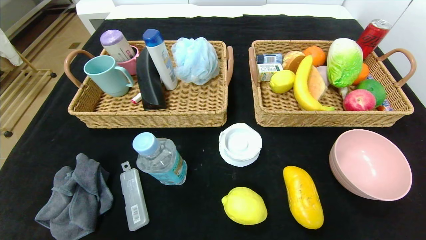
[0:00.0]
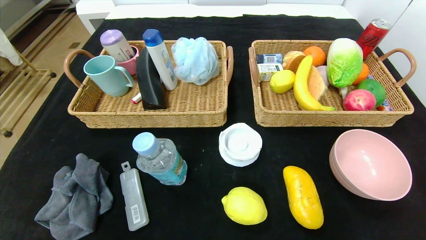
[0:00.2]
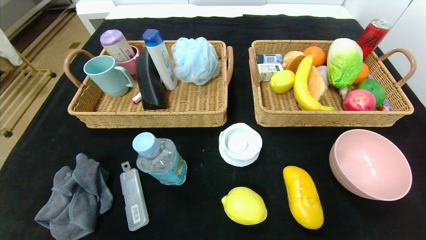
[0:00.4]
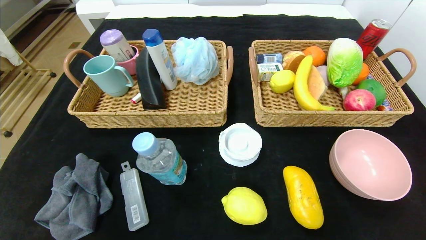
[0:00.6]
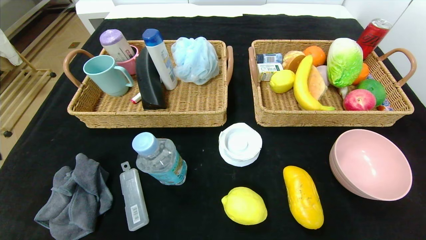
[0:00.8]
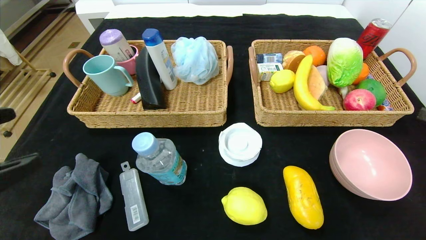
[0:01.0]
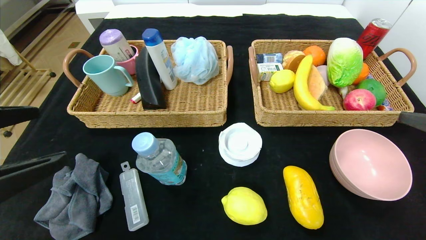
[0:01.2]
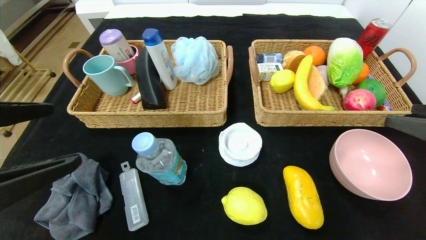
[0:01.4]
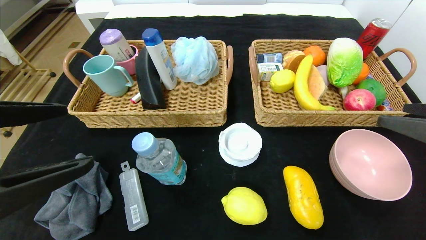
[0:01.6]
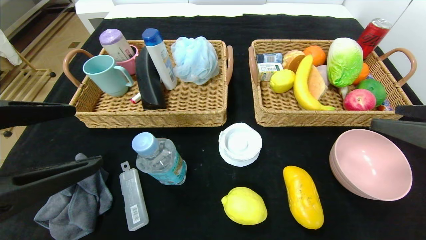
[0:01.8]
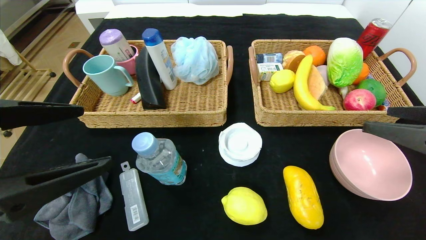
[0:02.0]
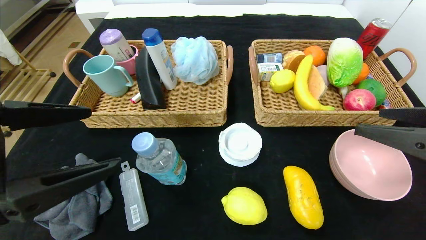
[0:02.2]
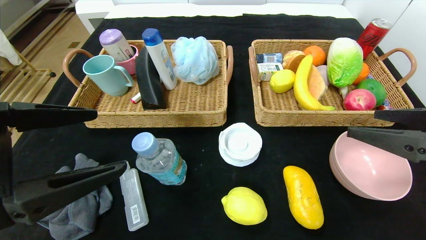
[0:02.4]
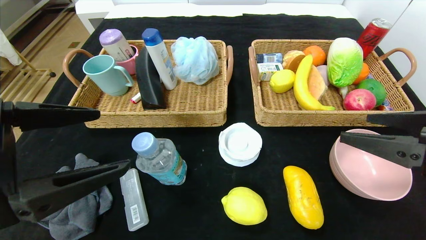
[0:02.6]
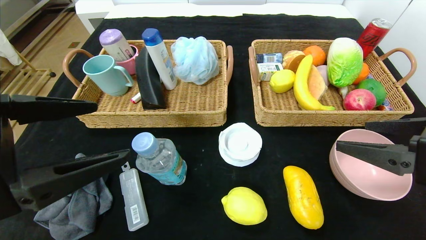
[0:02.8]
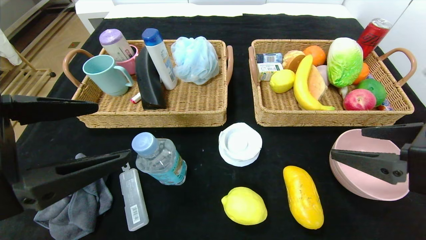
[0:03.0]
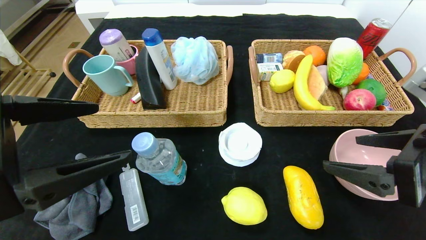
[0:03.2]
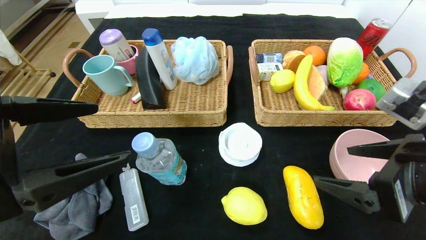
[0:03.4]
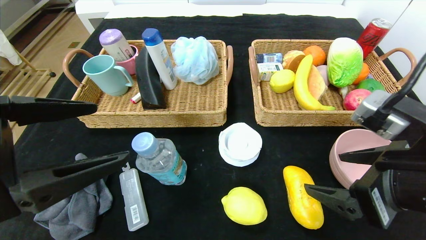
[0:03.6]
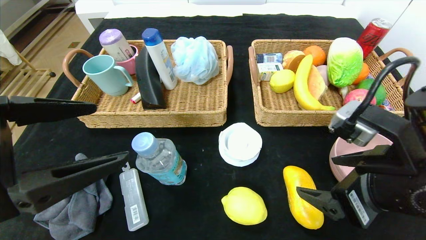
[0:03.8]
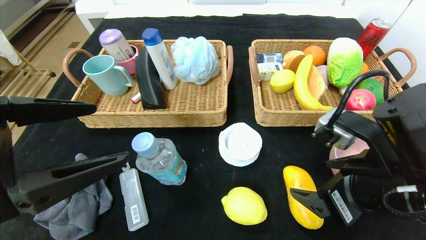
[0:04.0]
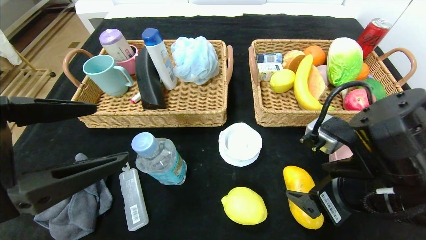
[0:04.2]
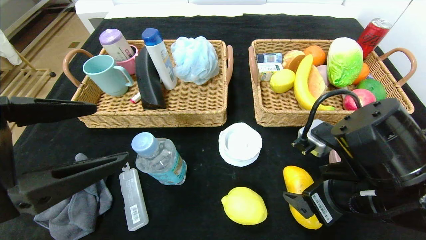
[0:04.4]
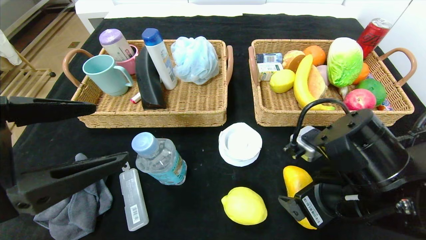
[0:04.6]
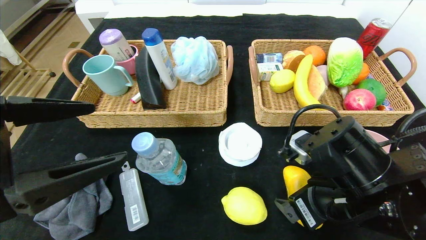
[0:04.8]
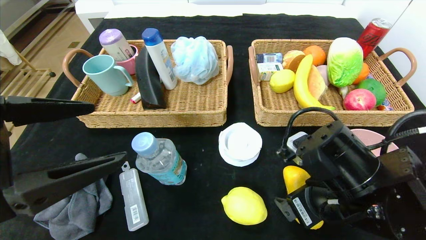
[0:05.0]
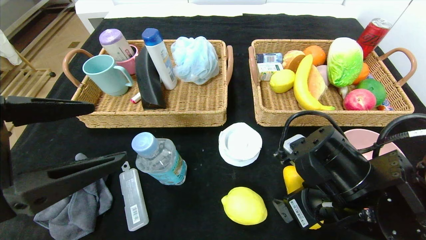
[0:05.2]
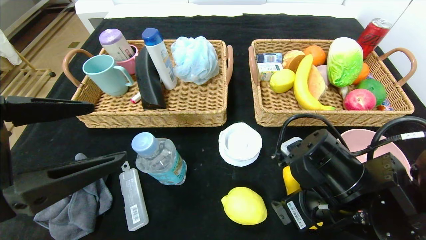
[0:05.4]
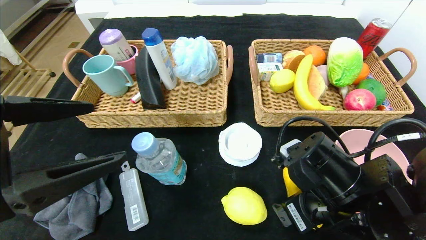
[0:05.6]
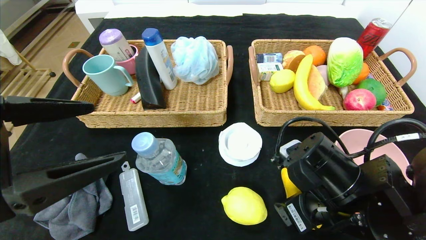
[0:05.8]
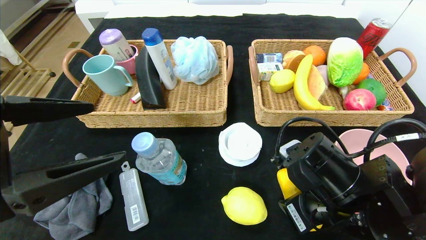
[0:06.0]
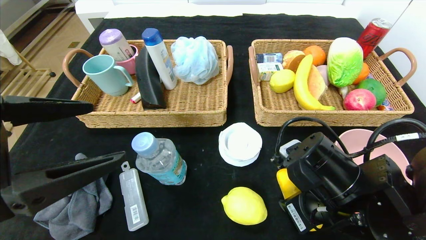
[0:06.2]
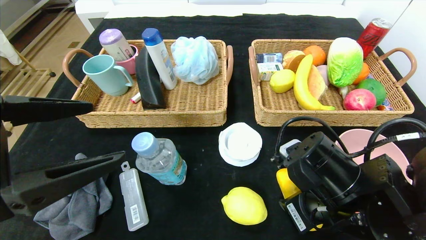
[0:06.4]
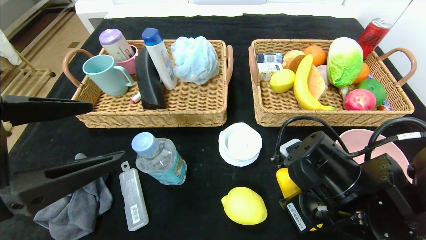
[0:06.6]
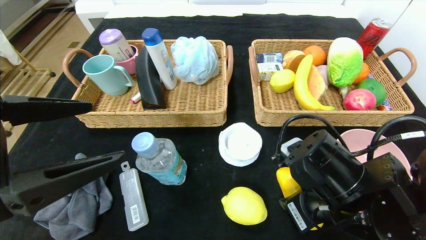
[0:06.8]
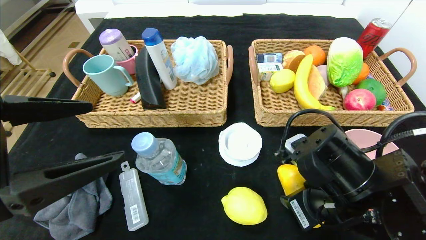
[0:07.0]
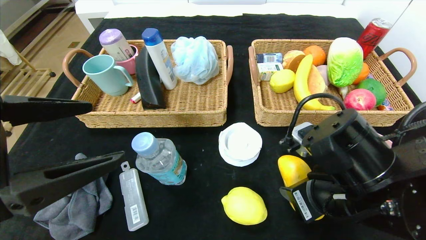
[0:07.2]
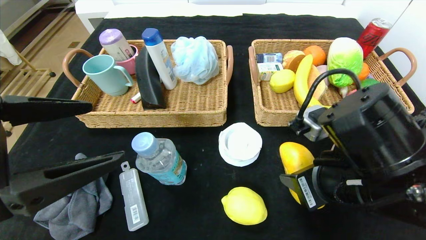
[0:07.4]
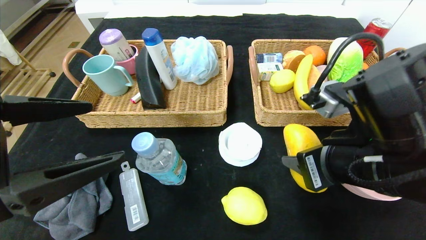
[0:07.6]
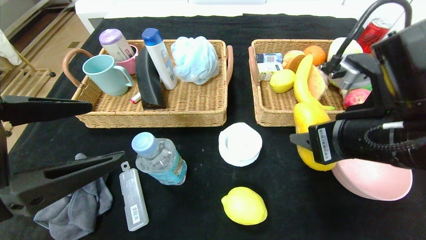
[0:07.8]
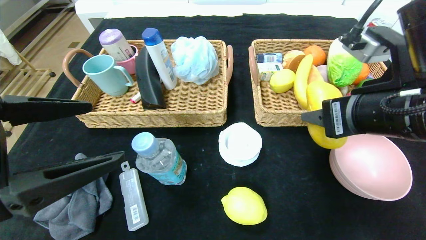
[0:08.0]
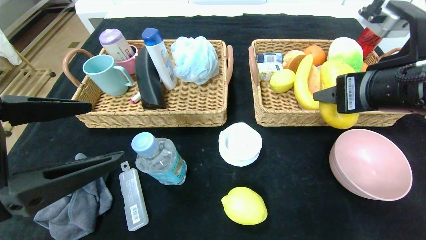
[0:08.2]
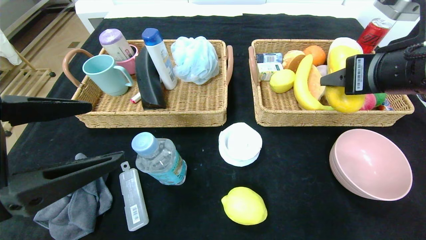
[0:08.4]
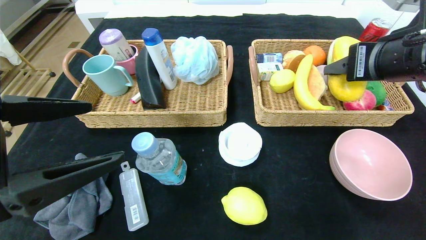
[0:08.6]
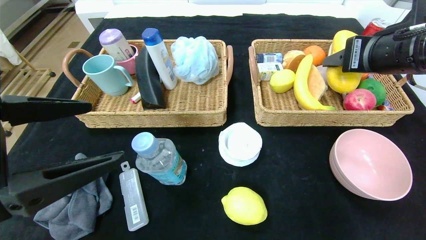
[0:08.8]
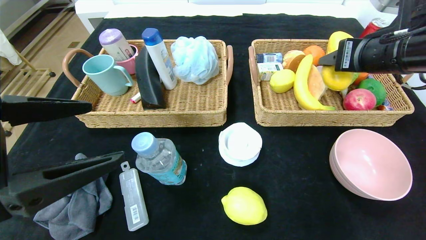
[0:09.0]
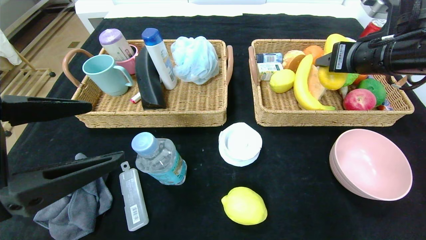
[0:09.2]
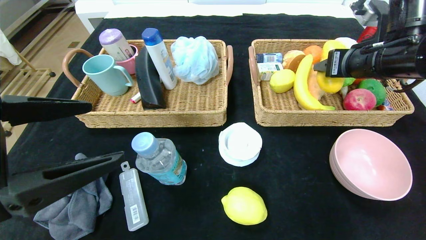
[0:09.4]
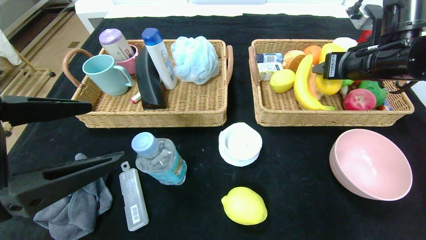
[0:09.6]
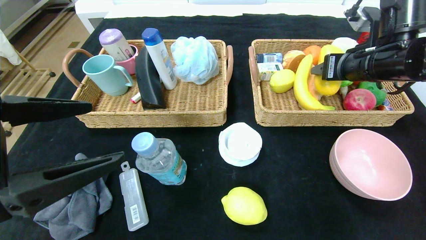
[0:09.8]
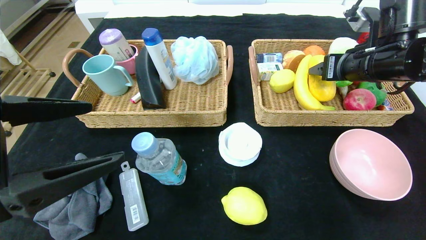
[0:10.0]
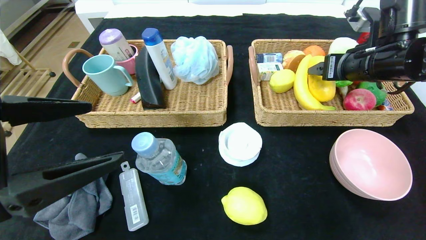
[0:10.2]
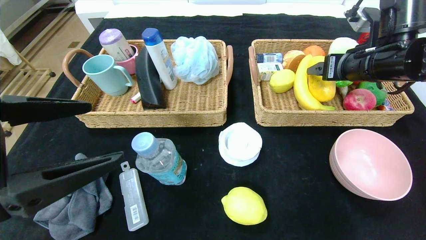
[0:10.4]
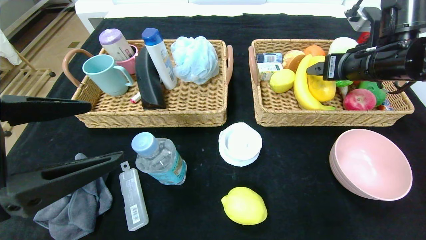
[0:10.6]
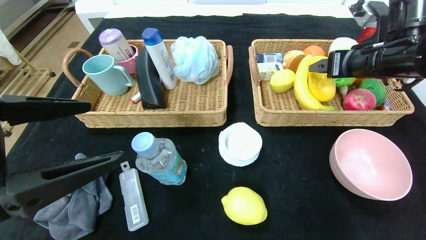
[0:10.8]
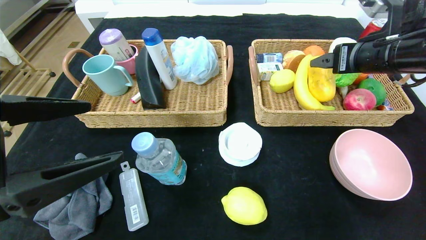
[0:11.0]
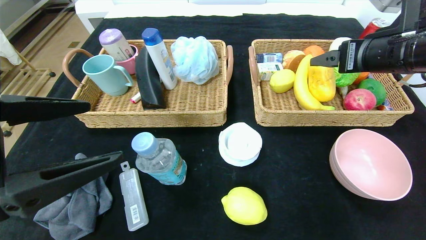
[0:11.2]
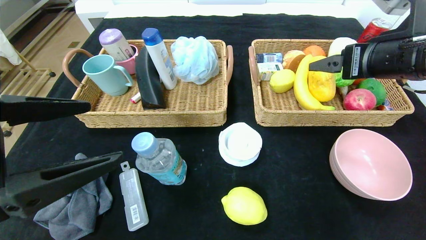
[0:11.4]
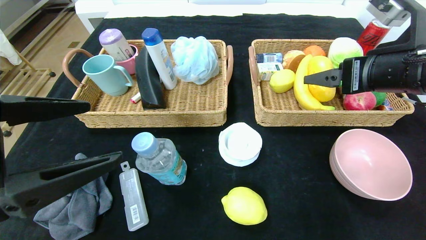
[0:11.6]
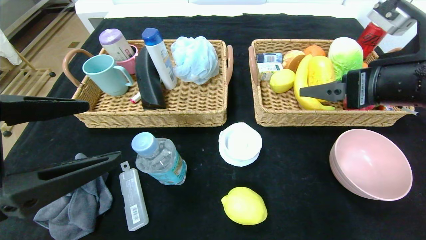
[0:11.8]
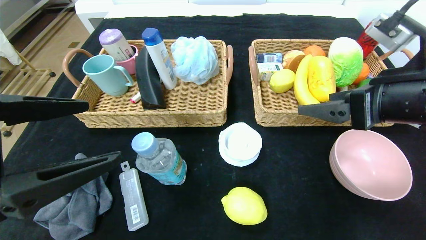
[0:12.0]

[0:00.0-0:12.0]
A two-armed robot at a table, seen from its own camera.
0:00.0 to 0:01.6: Both grippers travel together forward and upward, approximately 20 cm.
0:01.6 to 0:03.0: The right gripper moves to the left, about 5 cm.
0:03.0 to 0:04.4: The right gripper moves to the left and downward, about 10 cm.
0:04.4 to 0:06.0: The right gripper closes.
0:06.0 to 0:07.6: The right gripper shifts about 10 cm upward.
0:07.6 to 0:09.0: The right gripper heads forward, to the right and upward, covering approximately 15 cm.
0:09.0 to 0:10.4: The right gripper ends up about 5 cm from where it was.
0:10.4 to 0:12.0: The right gripper heads backward, covering about 10 cm.

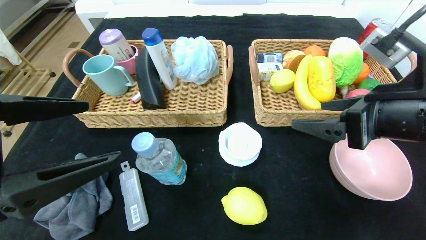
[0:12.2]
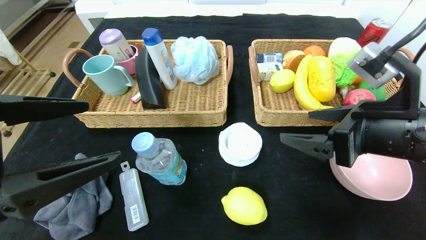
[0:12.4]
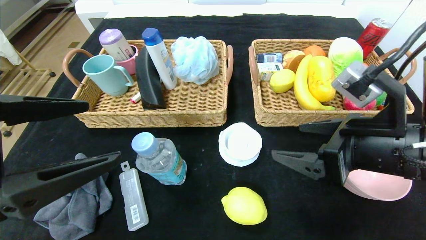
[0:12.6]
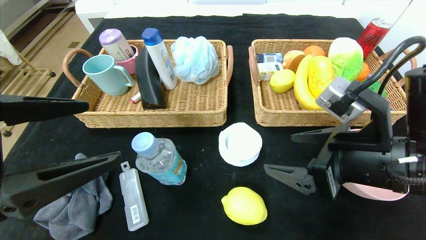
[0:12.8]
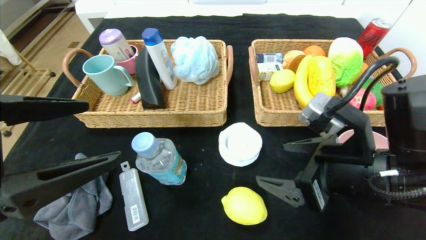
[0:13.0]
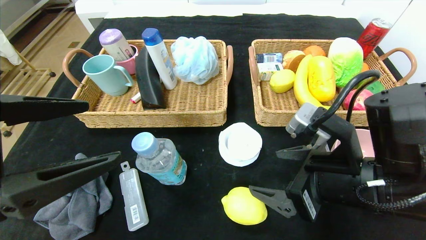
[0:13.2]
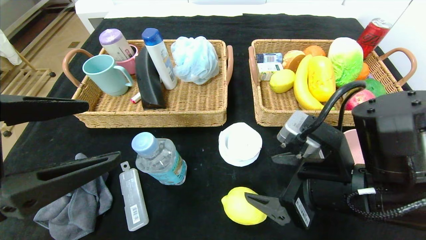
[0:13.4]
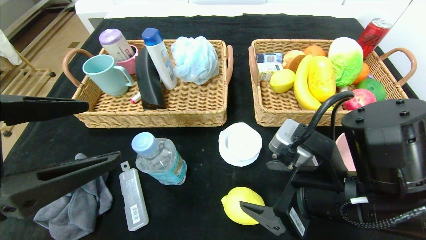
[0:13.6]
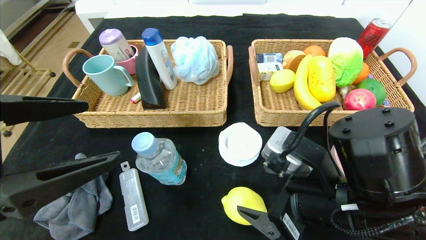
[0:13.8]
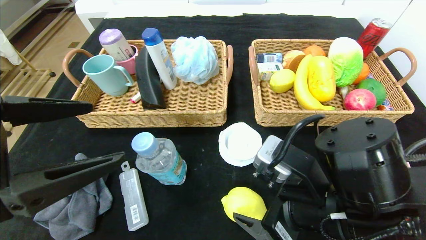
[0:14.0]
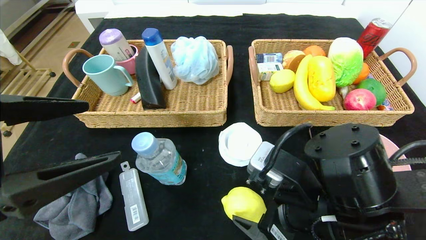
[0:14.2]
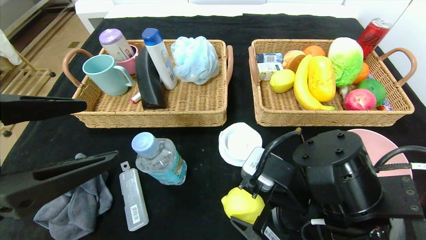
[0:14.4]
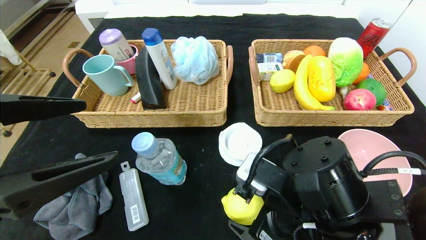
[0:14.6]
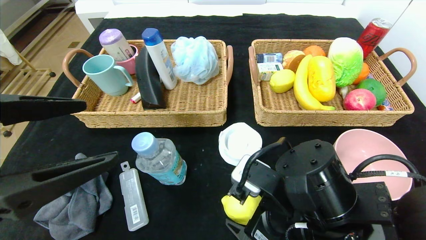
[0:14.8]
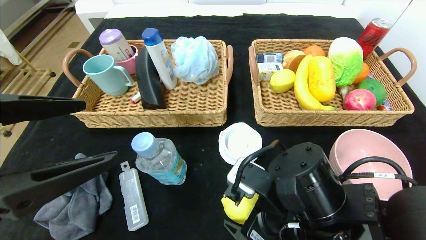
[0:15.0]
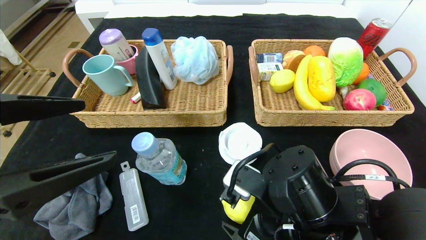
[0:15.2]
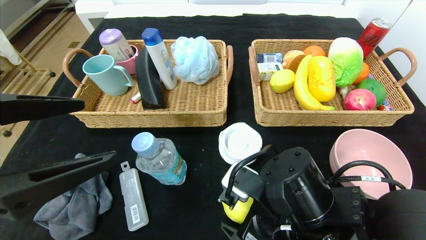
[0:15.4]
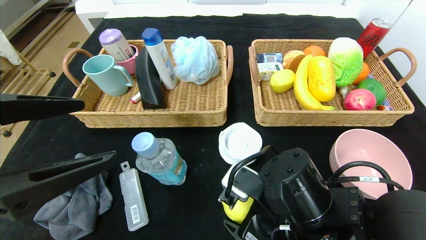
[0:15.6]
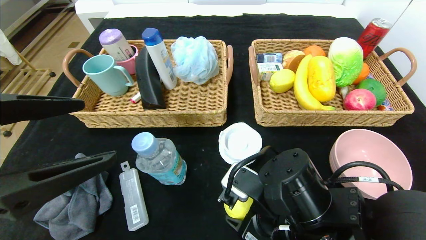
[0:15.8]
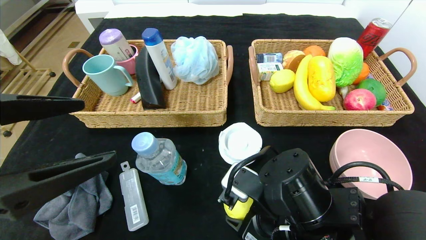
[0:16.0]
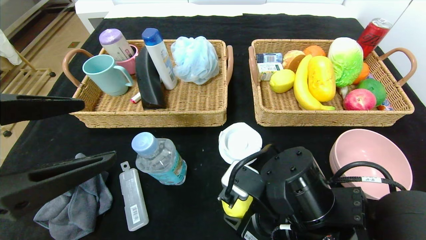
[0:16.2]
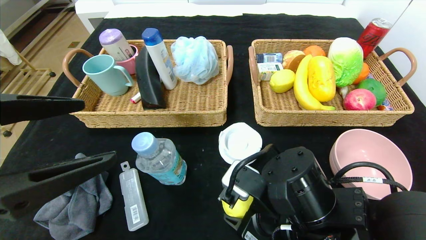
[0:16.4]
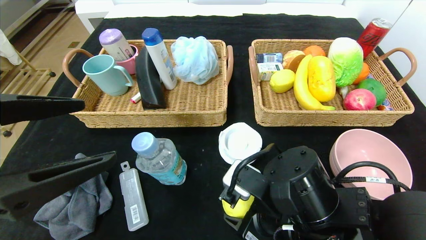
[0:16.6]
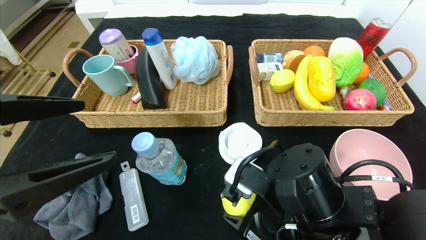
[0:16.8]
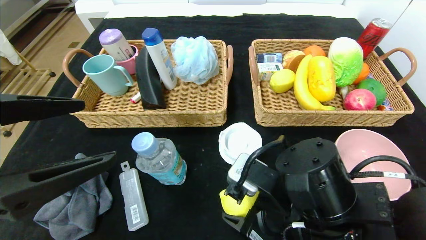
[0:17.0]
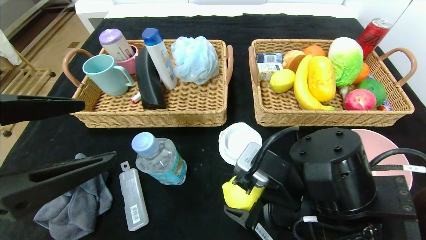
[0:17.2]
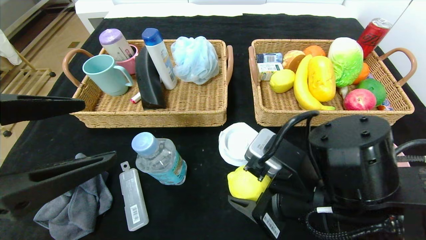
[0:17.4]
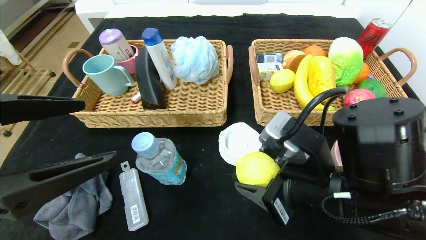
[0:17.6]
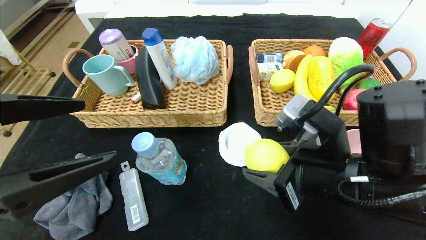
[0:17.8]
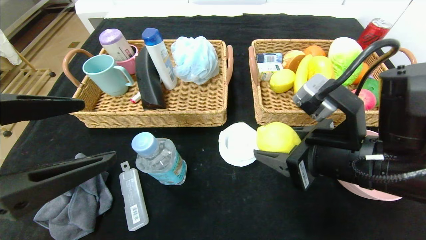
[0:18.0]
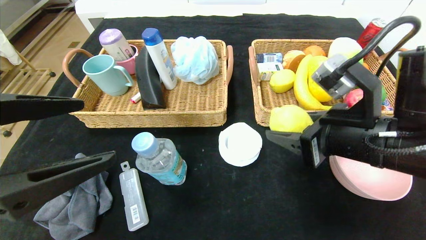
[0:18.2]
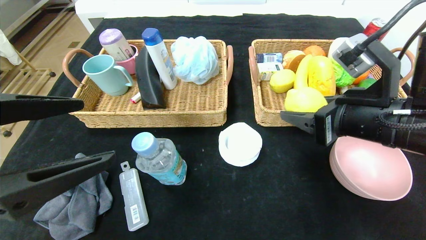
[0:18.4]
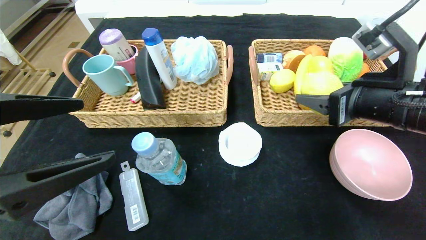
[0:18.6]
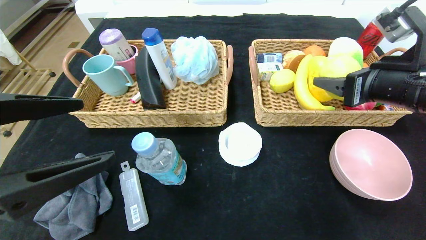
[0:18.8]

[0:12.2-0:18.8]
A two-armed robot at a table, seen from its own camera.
0:12.2 to 0:13.8: The right gripper shifts roughly 10 cm to the left and downward.
0:13.8 to 0:15.4: The right gripper moves downward, about 5 cm.
0:15.4 to 0:17.2: The right gripper closes up.
0:17.2 to 0:18.8: The right gripper moves to the right, upward and forward, some 20 cm.
